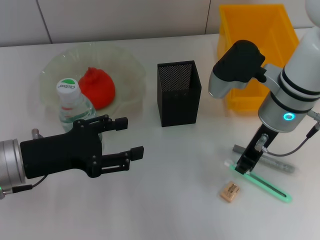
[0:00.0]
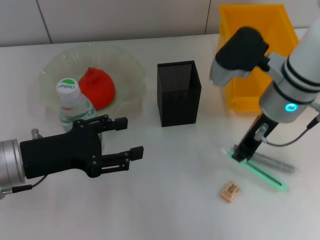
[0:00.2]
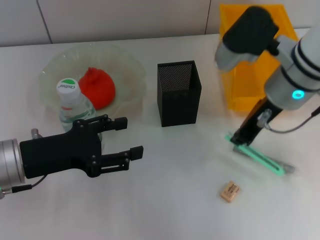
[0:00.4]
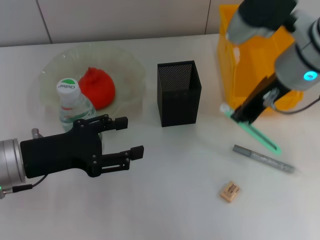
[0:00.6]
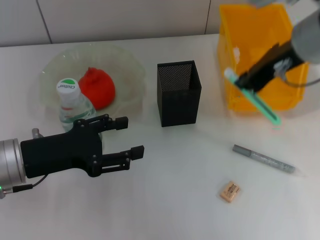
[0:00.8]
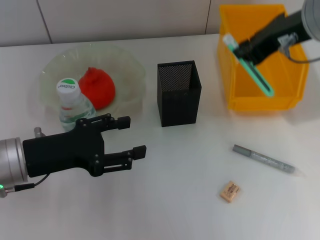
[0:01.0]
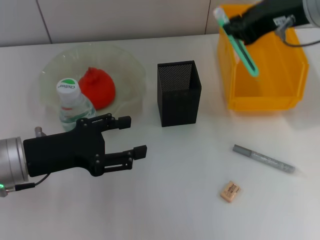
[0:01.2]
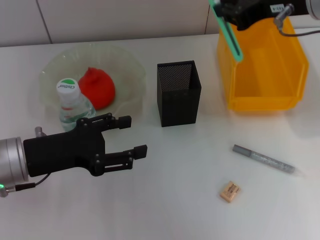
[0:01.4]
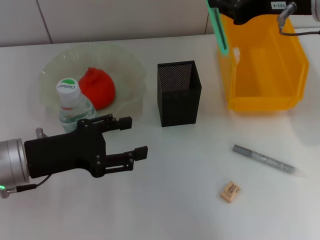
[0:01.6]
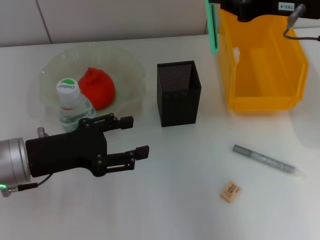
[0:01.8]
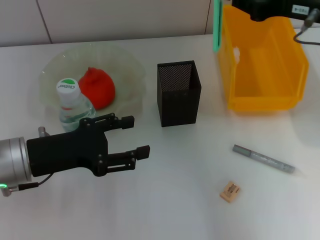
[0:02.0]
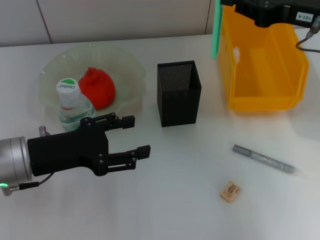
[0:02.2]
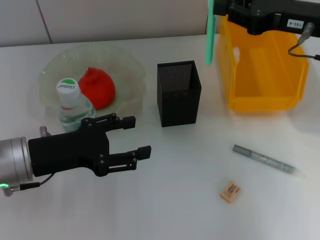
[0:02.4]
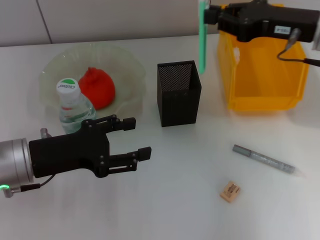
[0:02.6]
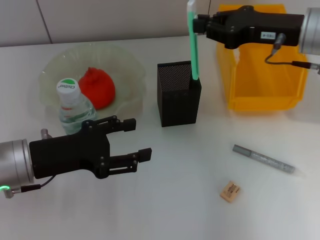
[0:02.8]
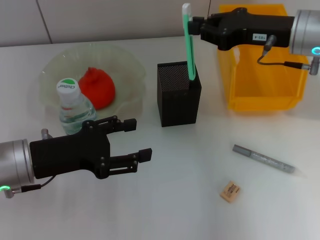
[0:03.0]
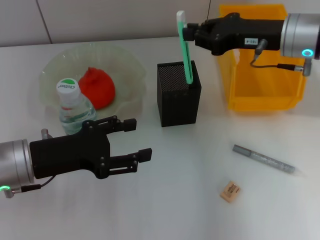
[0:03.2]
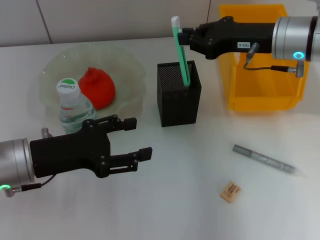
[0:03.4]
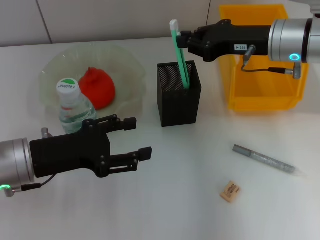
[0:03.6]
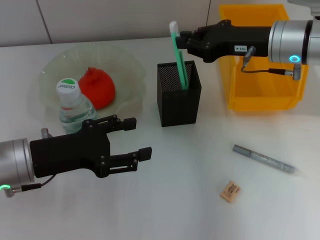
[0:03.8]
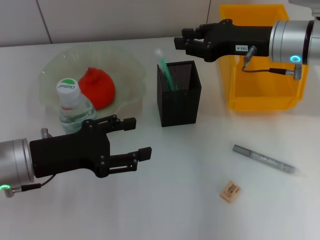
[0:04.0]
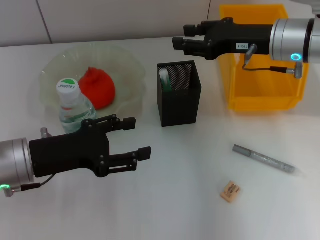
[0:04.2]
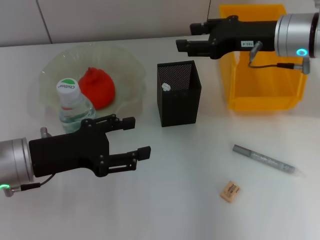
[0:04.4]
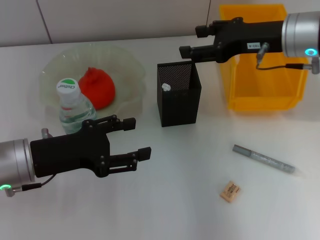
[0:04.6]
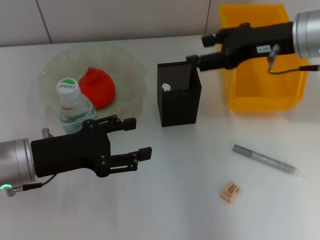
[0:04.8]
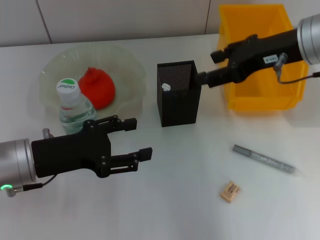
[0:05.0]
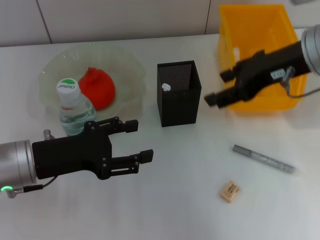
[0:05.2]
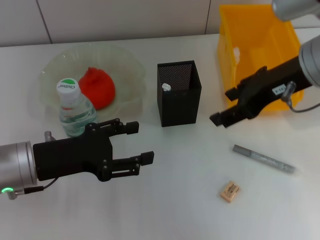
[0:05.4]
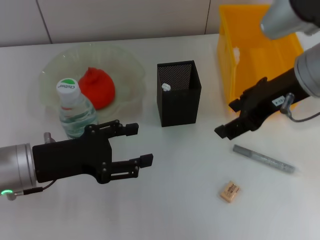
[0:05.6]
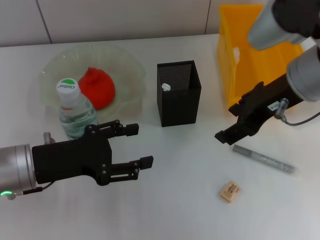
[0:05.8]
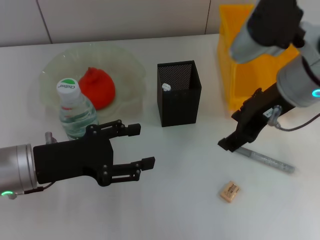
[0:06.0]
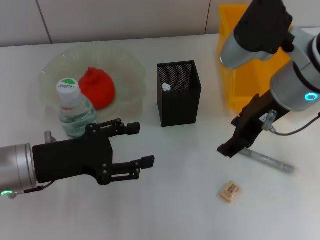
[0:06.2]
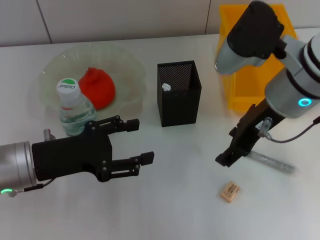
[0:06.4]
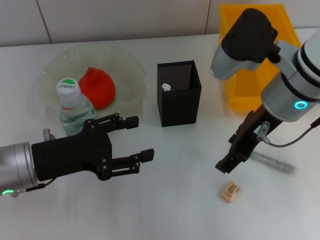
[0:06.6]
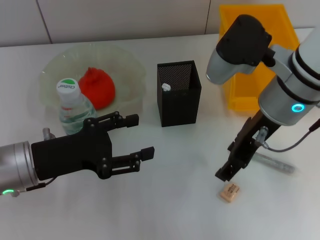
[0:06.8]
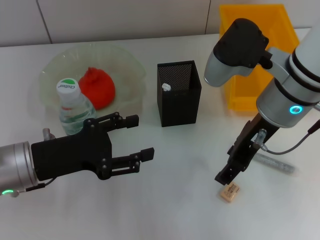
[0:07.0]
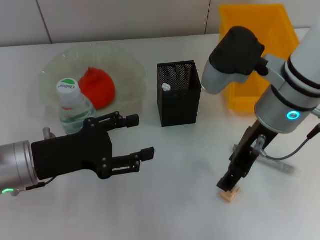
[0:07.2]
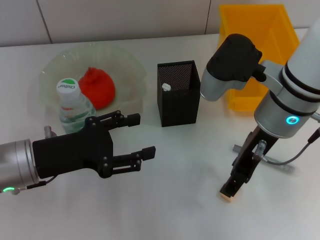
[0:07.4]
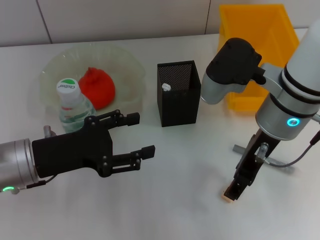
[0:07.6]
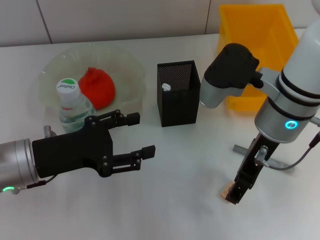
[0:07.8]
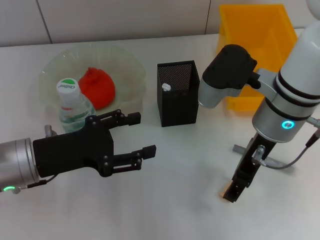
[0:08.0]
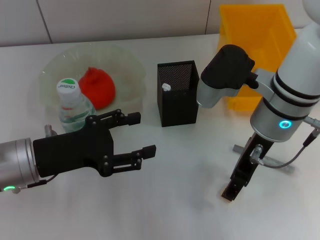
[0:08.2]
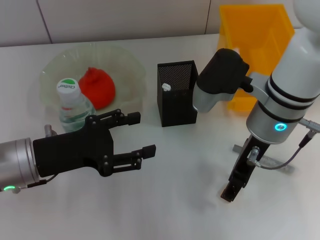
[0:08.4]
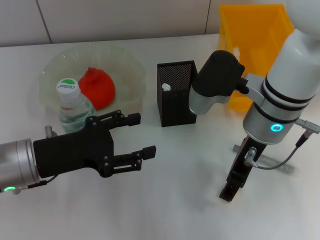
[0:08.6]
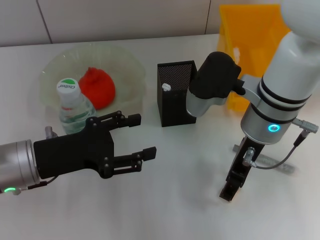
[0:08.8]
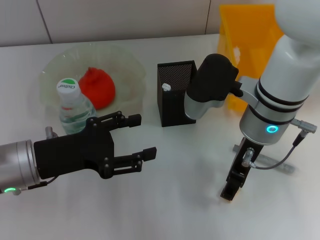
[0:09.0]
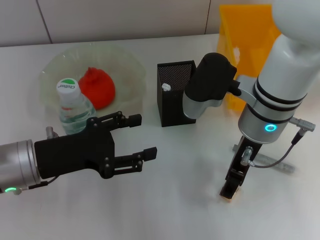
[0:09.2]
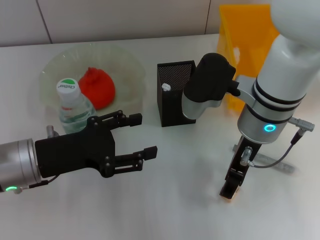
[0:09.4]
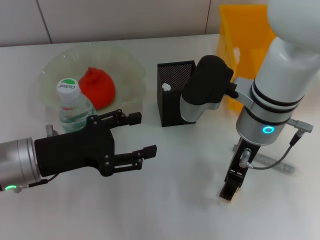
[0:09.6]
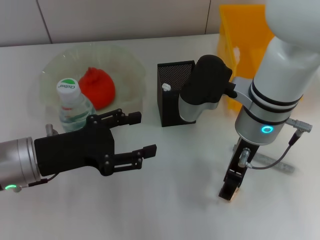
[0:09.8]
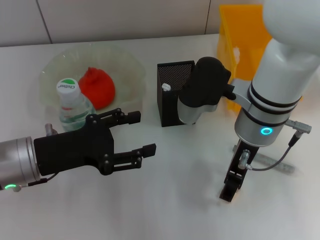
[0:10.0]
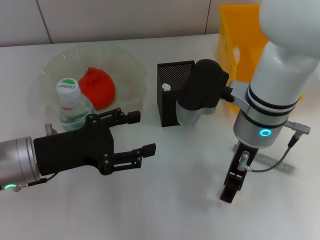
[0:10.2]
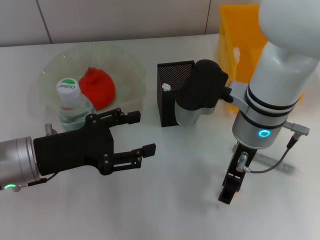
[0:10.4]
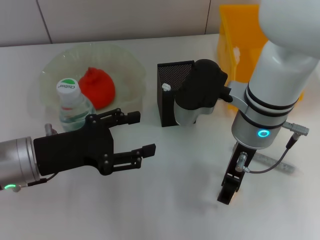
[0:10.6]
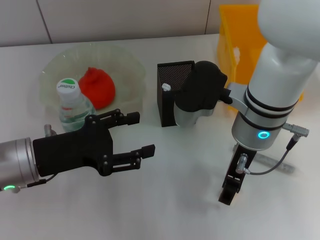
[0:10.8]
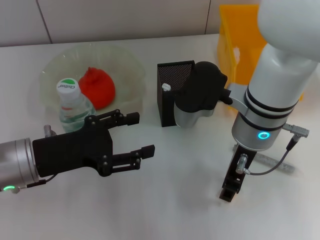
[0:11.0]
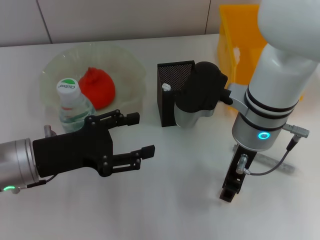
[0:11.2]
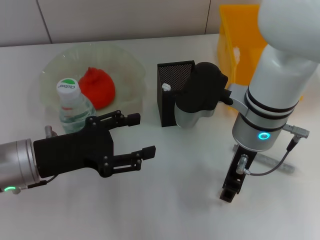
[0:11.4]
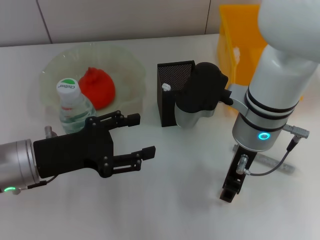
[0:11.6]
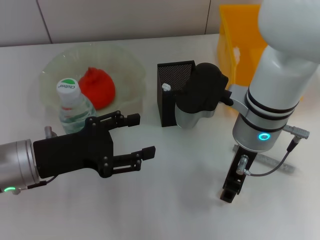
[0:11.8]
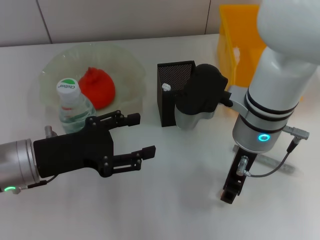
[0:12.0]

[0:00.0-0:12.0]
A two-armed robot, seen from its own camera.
Step, 0:00.0 to 0:04.0: Place the blue utility knife into the pen holder with the right hand.
0:00.0 to 0:01.6: The right gripper moves upward, some 15 cm.
0:01.6 to 0:03.0: The right gripper shifts some 10 cm downward.
0:03.0 to 0:04.4: The right gripper opens its fingers.
0:04.4 to 0:06.0: The right gripper shifts about 5 cm backward, and opens up.
0:07.6 to 0:09.0: There are only small adjustments of the grippers.
0:09.0 to 0:10.4: Both grippers stay about where they are.
0:10.4 to 0:12.0: The right gripper closes up.

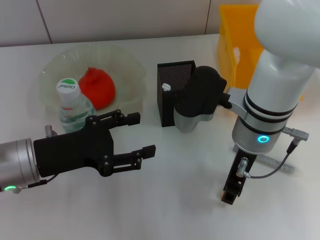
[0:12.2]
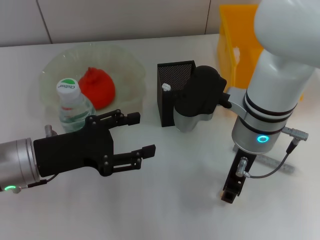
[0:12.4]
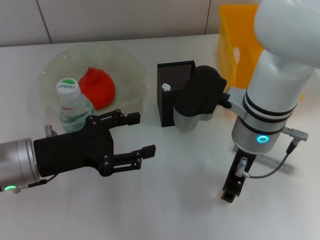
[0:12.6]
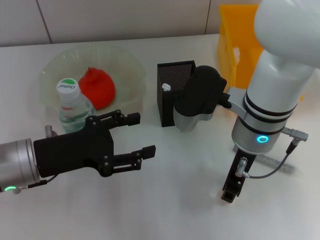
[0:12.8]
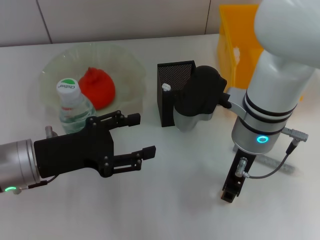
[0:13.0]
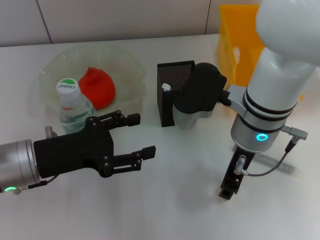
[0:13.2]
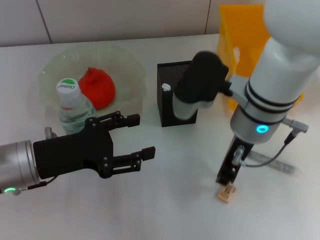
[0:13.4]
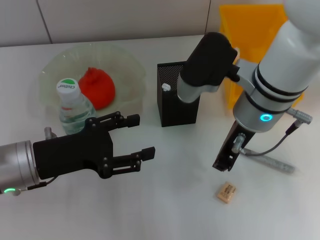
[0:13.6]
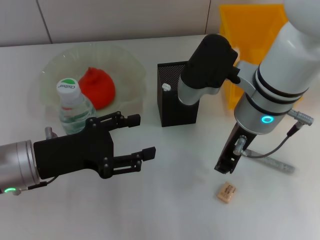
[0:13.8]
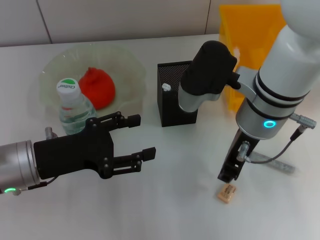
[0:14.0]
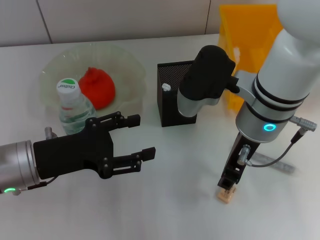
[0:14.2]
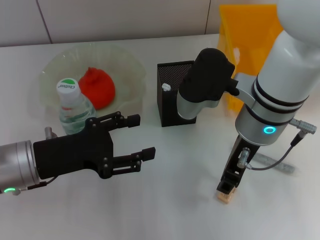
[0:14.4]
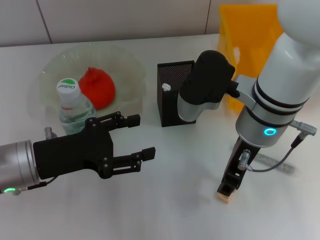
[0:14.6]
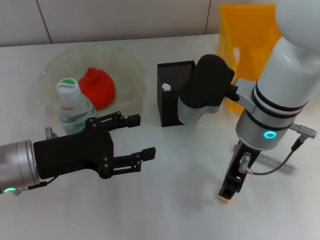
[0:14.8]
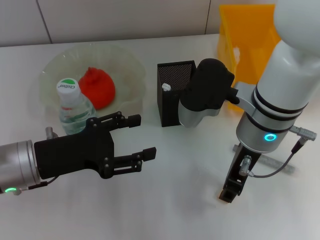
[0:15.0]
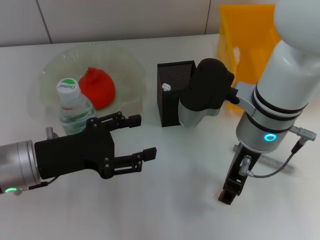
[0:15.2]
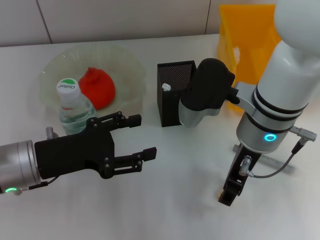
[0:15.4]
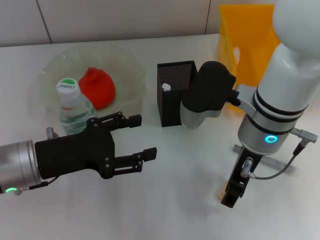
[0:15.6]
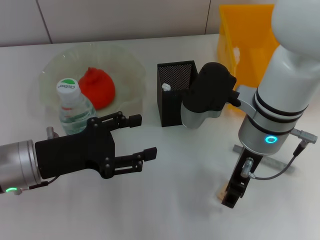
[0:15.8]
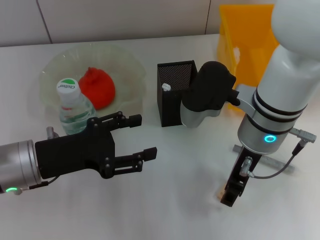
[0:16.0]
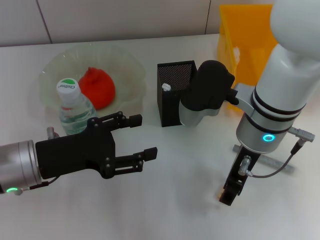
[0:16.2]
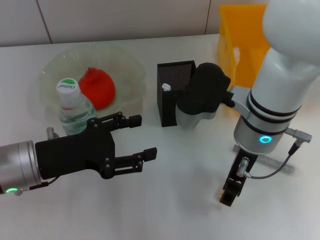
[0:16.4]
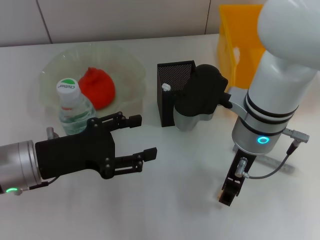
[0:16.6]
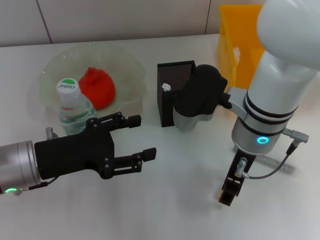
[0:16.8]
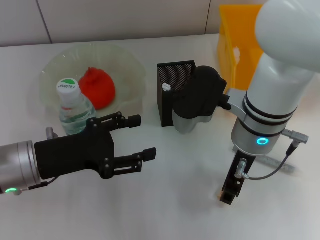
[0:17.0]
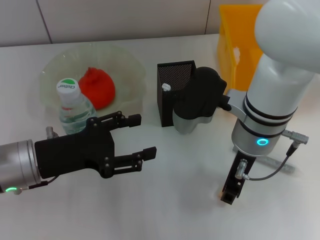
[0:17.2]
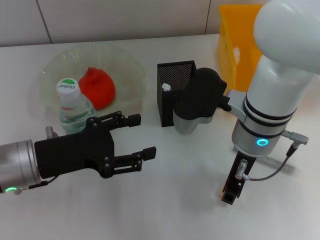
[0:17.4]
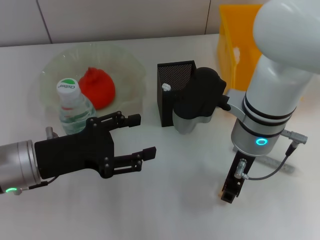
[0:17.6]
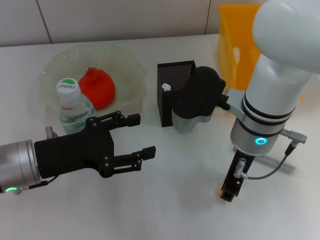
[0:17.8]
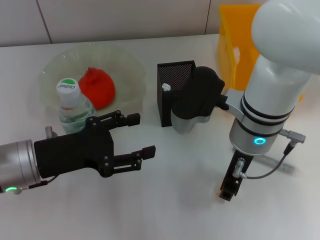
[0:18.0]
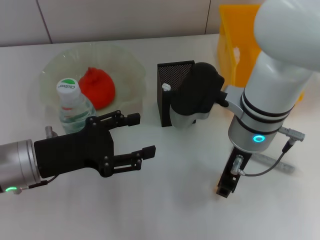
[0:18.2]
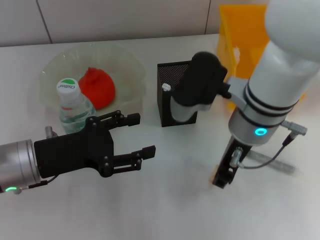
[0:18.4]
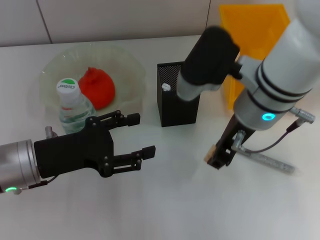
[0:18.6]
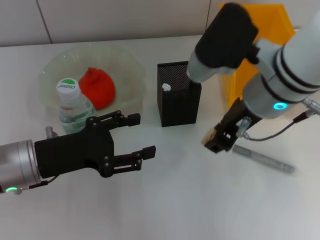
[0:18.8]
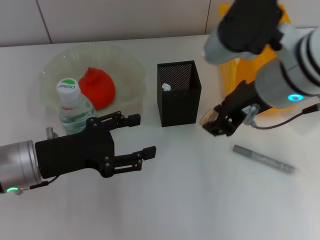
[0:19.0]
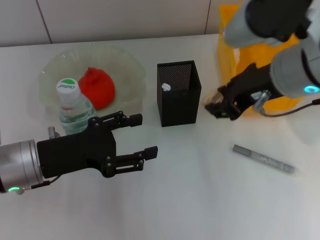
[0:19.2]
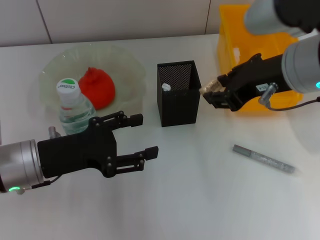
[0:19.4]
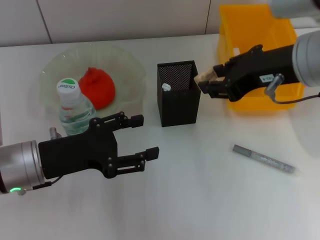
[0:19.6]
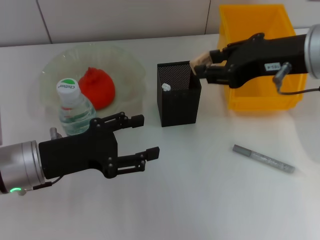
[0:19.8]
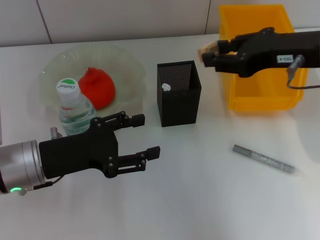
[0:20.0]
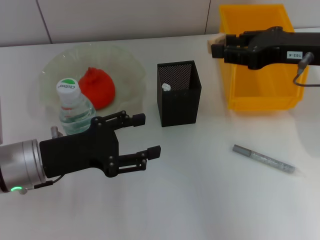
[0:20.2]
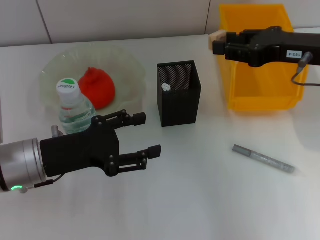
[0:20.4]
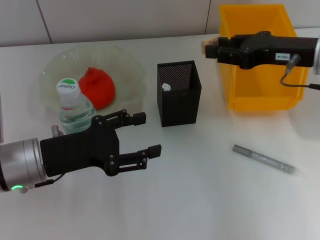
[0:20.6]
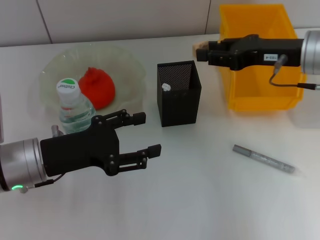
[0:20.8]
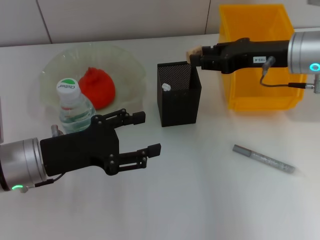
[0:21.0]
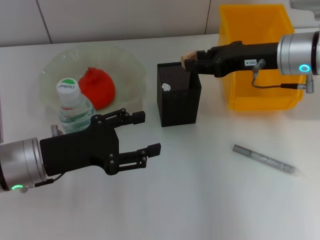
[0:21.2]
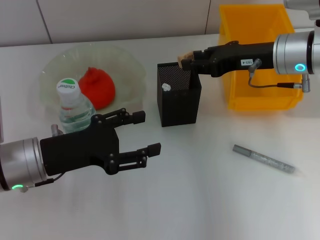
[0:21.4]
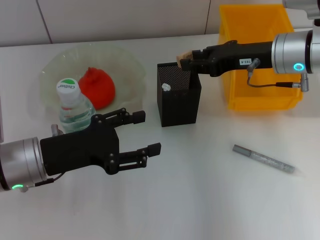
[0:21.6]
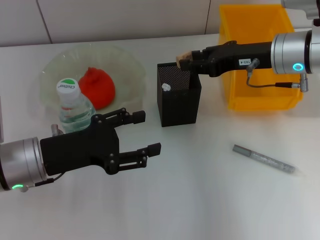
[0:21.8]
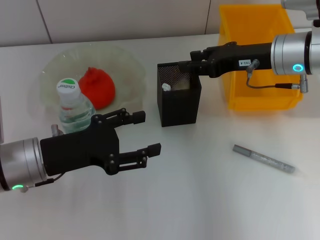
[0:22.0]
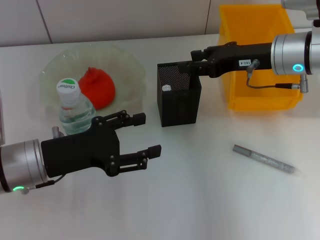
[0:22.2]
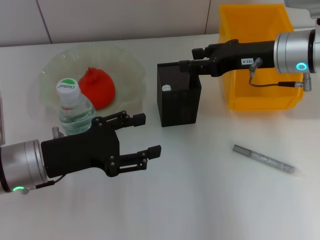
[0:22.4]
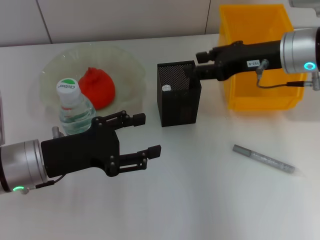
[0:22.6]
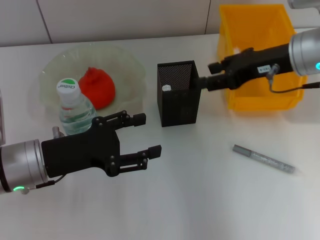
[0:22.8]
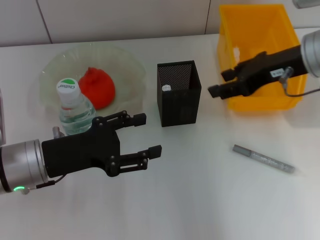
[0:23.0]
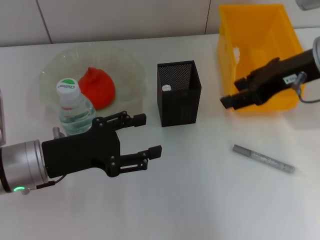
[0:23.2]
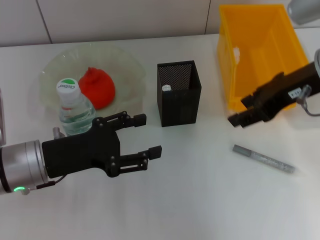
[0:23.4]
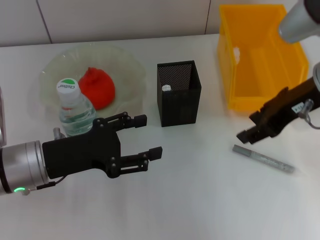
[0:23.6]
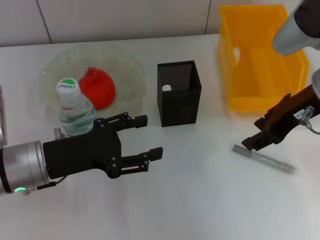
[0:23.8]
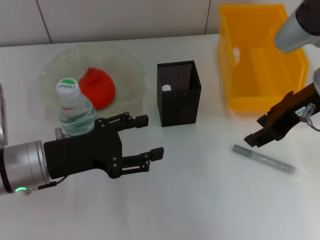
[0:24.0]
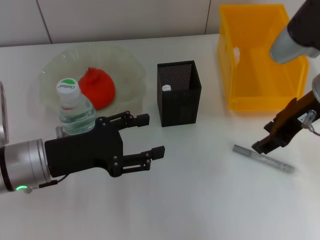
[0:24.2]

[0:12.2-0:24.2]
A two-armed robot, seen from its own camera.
Step, 0:12.2 to 0:17.8: Grab the eraser with the right hand.
Step, 0:18.0 to 0:22.0: Put the eraser into the pen holder with the right hand.
0:12.2 to 0:13.8: The right gripper closes.
0:13.8 to 0:15.2: The right gripper opens up.
0:15.2 to 0:16.6: Both grippers stay about where they are.
0:16.6 to 0:18.2: Neither gripper changes place.
0:18.2 to 0:19.8: The right gripper moves upward and to the right, some 15 cm.
0:19.8 to 0:21.2: The right gripper travels downward and forward by approximately 10 cm.
0:21.2 to 0:22.6: The grippers stay close to where they were, moving slightly.
0:22.6 to 0:24.2: The right gripper goes about 5 cm backward.
